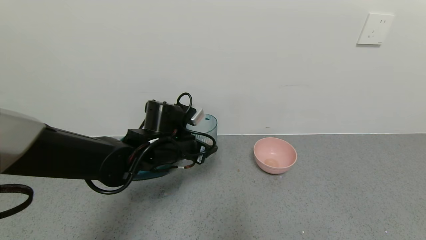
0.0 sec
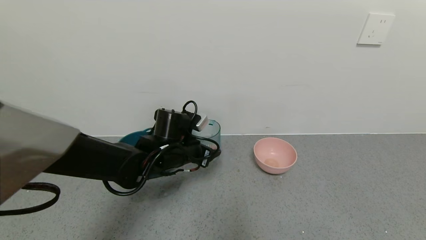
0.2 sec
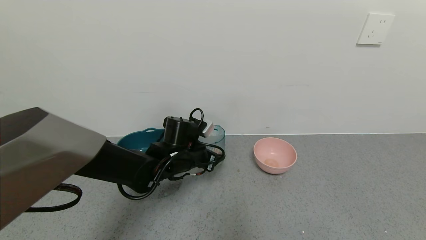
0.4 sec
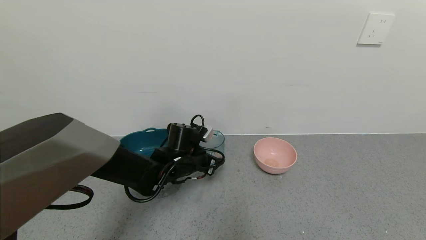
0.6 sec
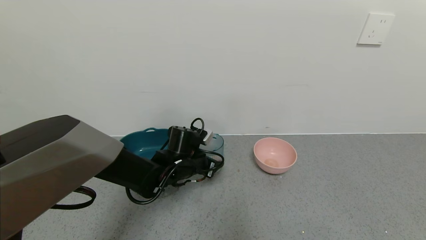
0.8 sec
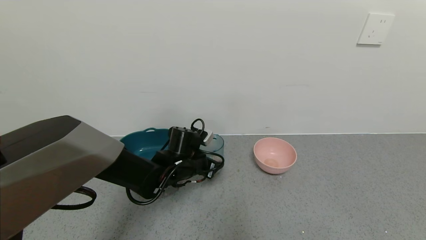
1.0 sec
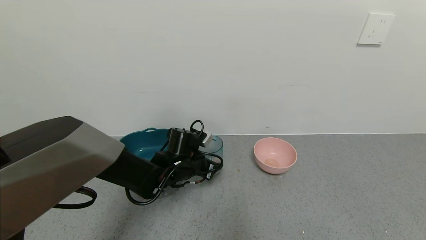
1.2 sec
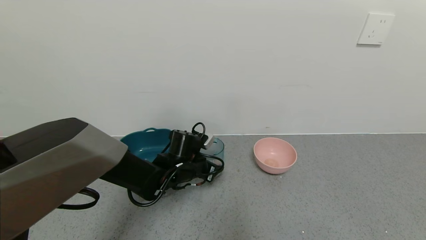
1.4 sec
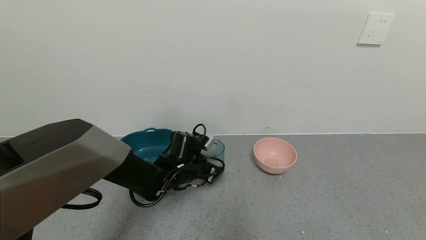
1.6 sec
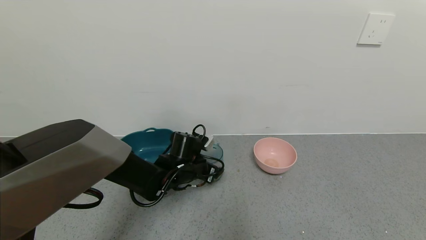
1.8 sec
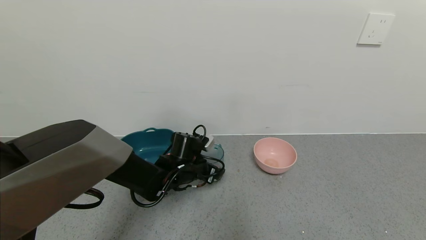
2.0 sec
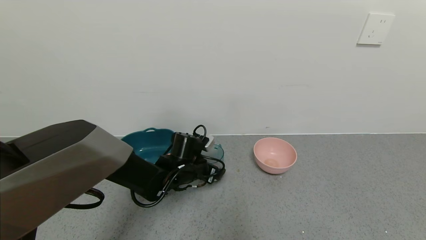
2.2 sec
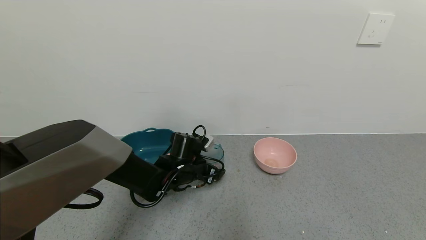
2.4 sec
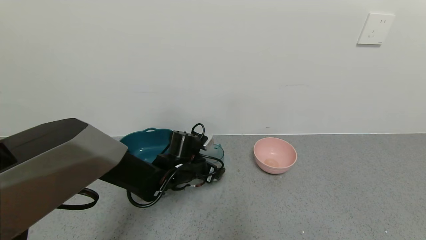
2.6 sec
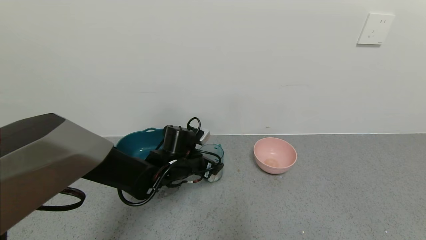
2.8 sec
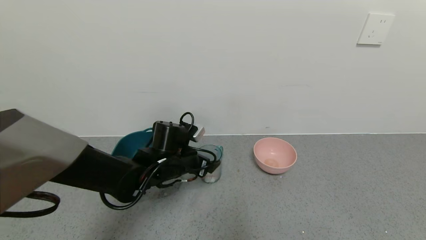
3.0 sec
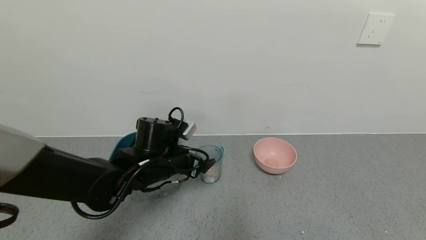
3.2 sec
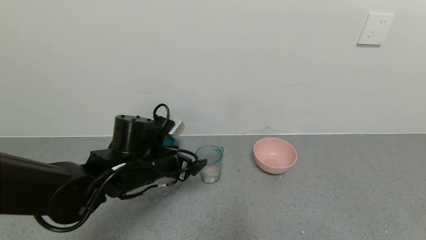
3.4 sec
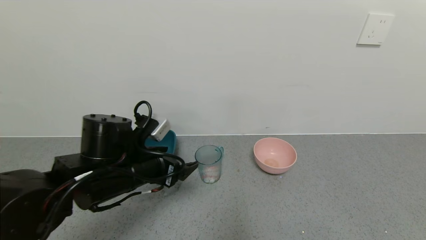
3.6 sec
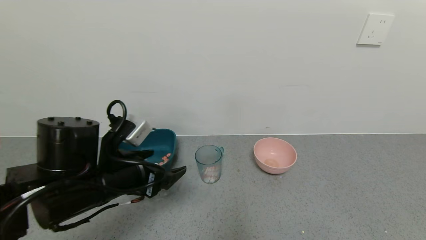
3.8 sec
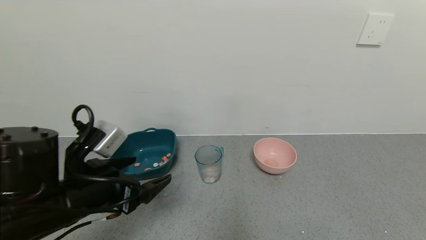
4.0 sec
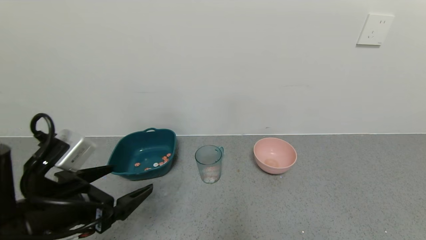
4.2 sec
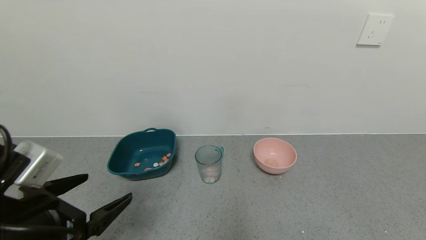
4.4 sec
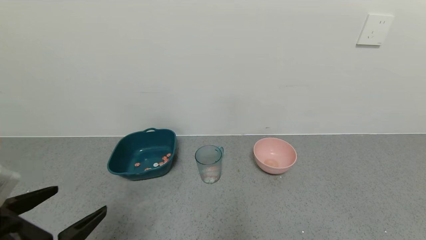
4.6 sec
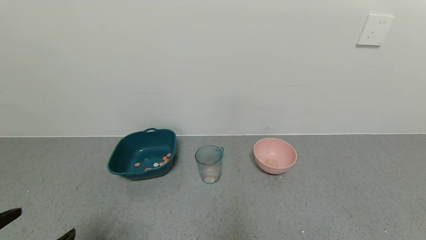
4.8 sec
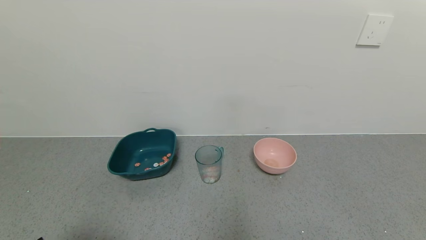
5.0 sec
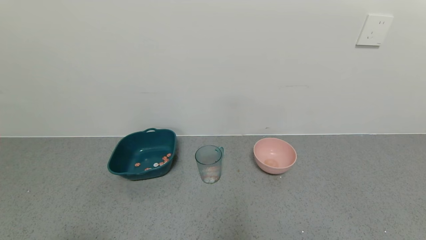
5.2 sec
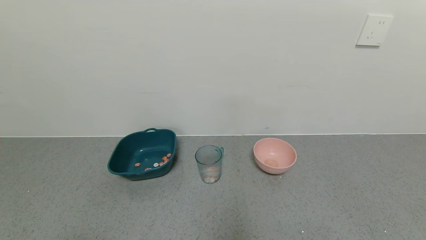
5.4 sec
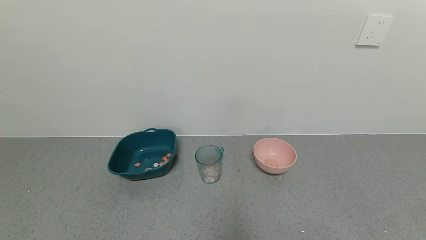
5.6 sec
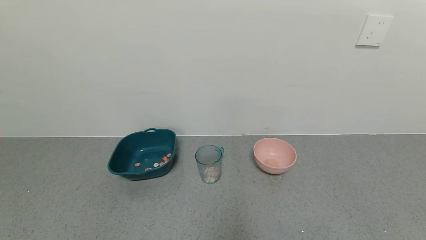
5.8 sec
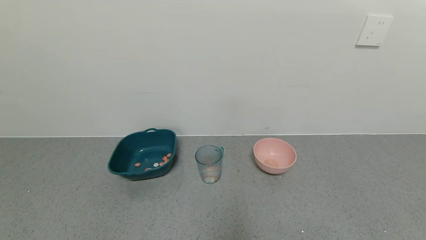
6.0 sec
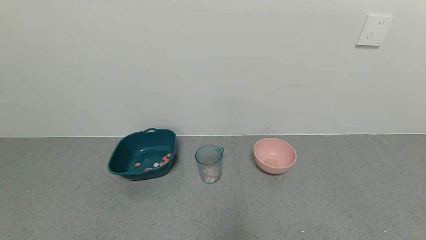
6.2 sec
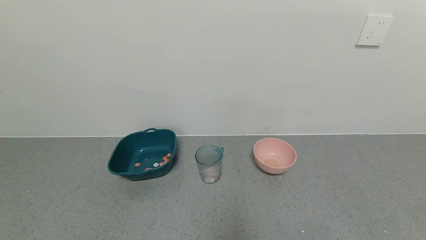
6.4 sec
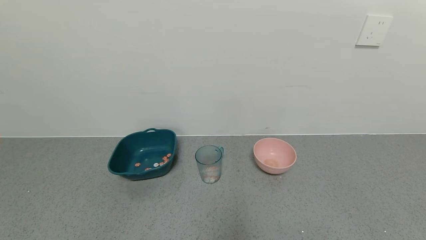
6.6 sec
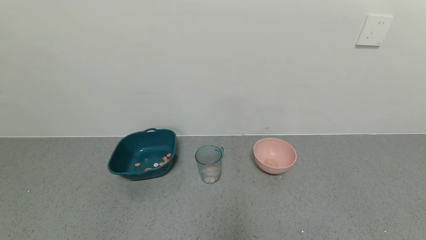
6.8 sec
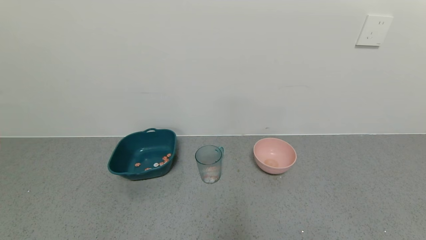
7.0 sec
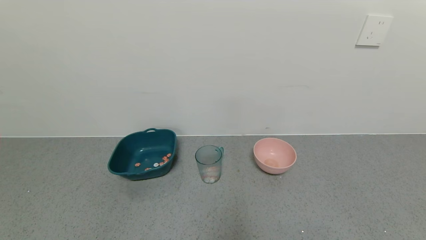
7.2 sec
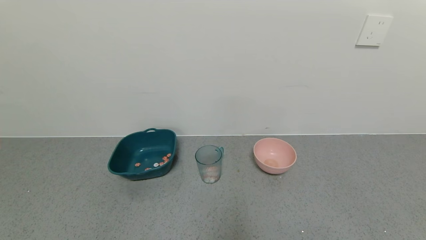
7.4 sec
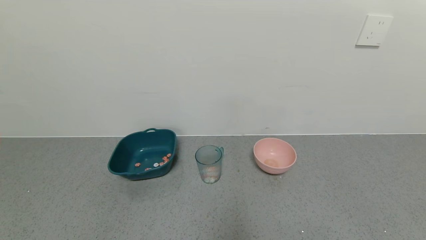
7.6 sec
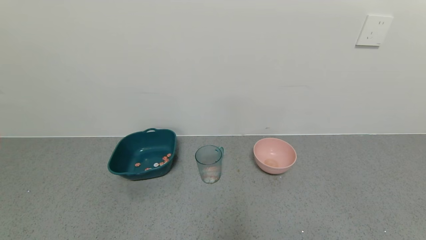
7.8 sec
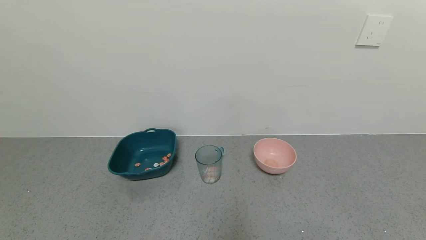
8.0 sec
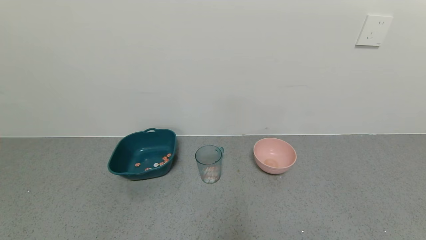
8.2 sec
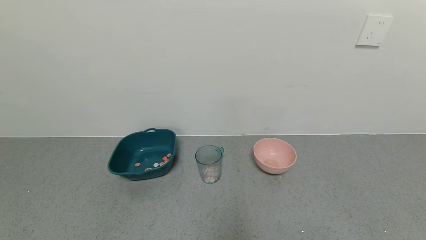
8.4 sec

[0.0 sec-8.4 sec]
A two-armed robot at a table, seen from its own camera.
Task of the whole recording: use a gripper to pick up the cup and pour the solid into a bowl or tray.
Step, 0.0 sec to 3.0 sec: Place the glass cup with the left gripper.
0.0 sec to 1.4 sec: The left gripper moves downward, about 10 cm.
1.4 sec to 2.8 sec: The left gripper opens its fingers.
2.8 sec to 4.2 sec: The left gripper travels backward, to the left and upward by roughly 25 cm.
4.2 sec to 5.6 sec: The left gripper heads backward, covering some 20 cm.
